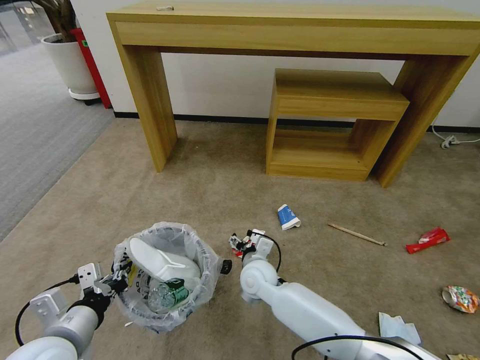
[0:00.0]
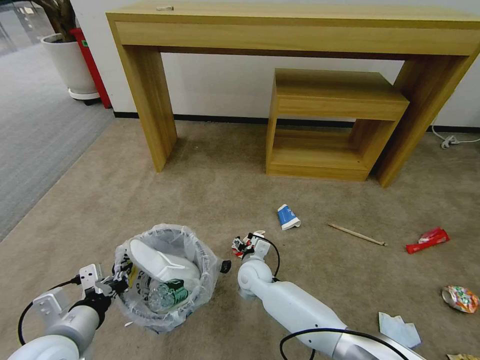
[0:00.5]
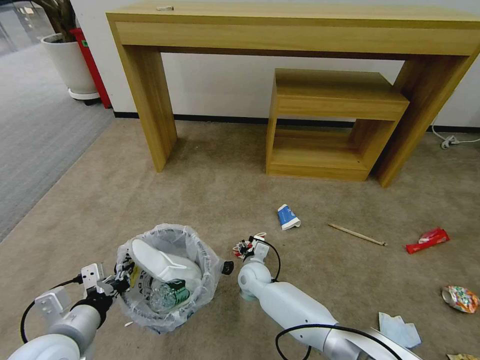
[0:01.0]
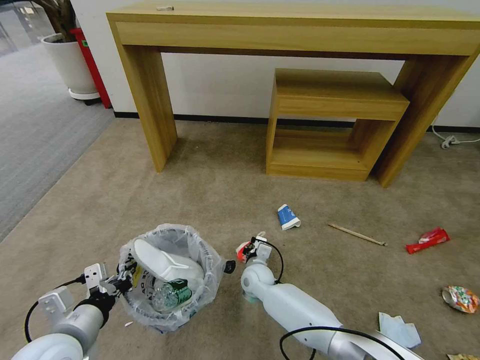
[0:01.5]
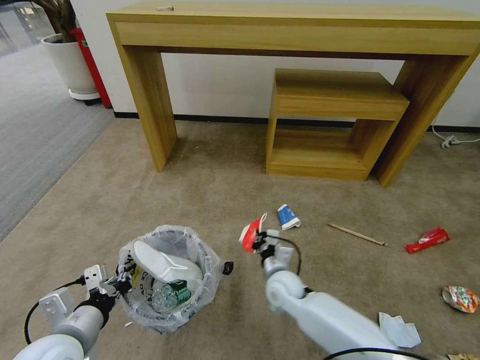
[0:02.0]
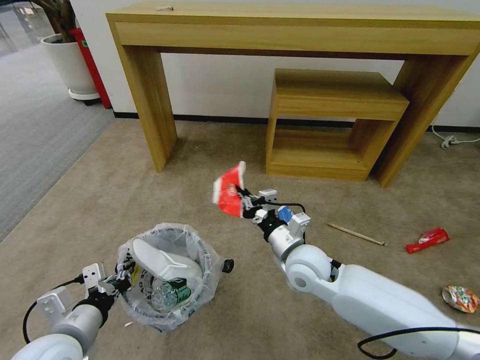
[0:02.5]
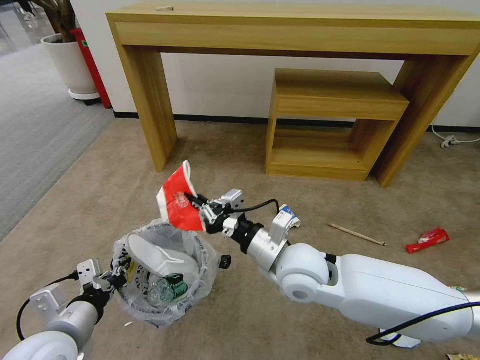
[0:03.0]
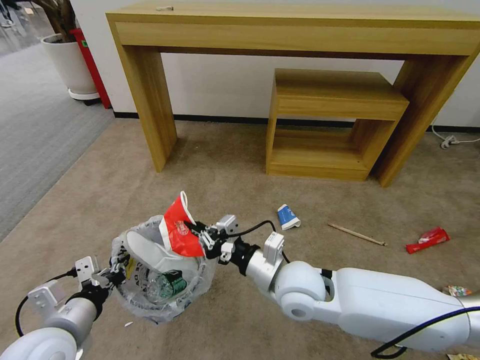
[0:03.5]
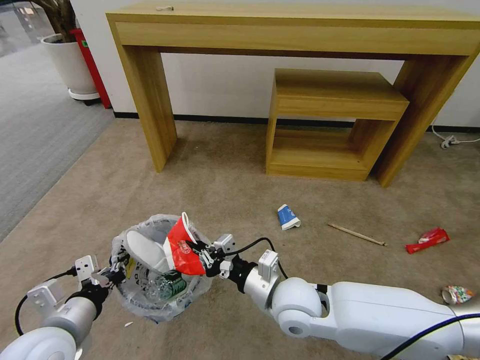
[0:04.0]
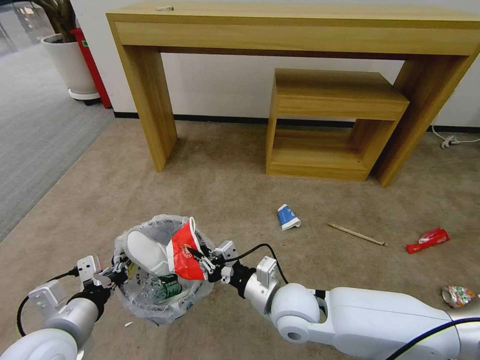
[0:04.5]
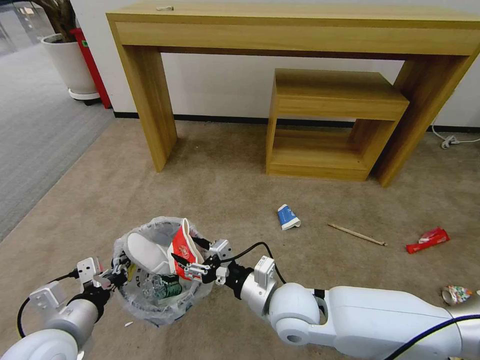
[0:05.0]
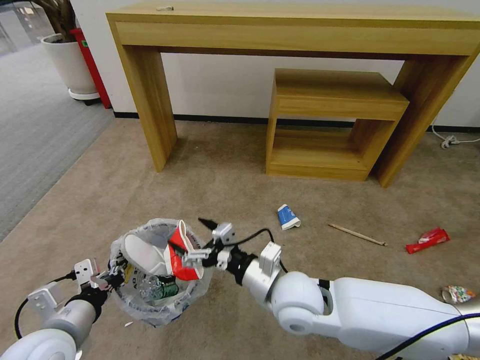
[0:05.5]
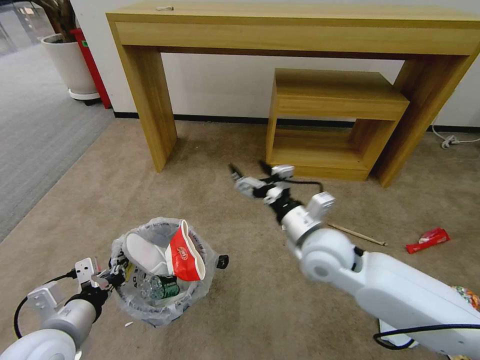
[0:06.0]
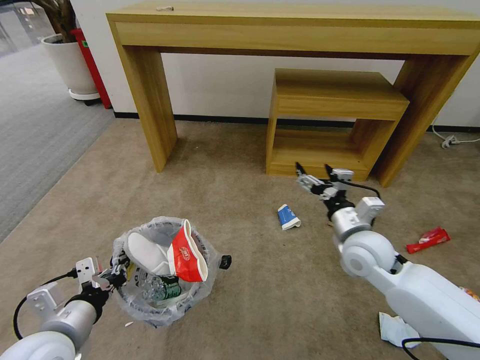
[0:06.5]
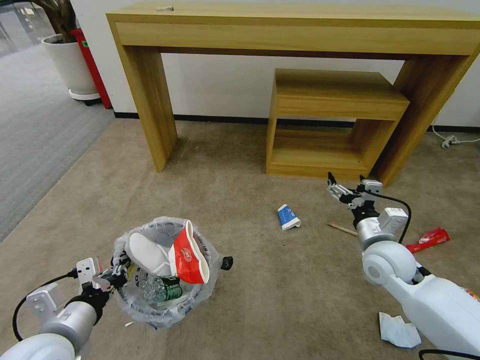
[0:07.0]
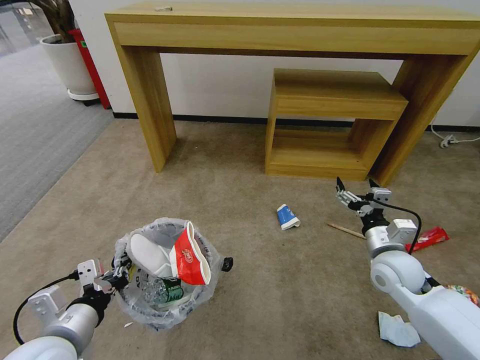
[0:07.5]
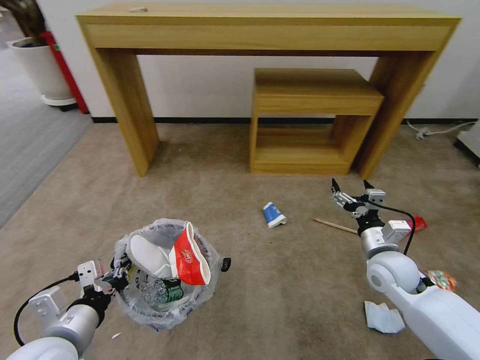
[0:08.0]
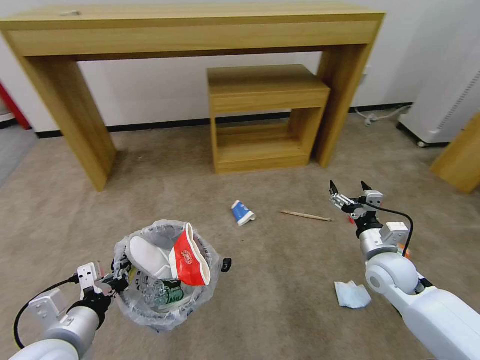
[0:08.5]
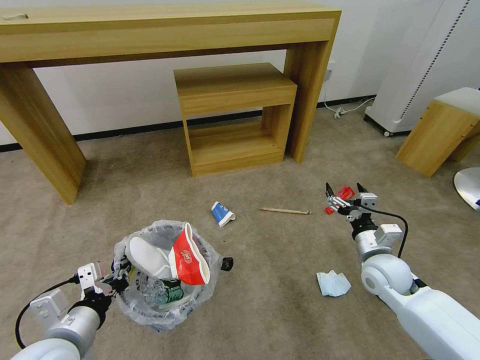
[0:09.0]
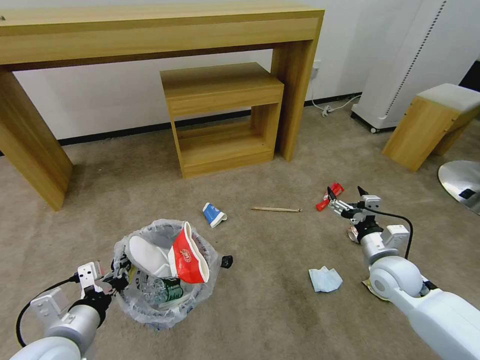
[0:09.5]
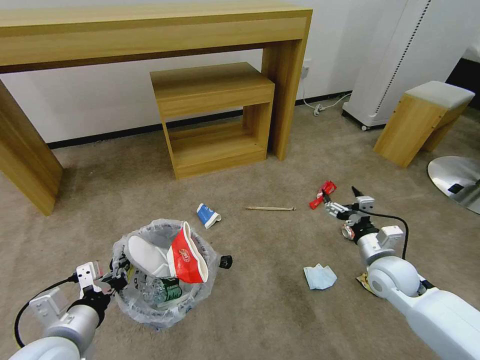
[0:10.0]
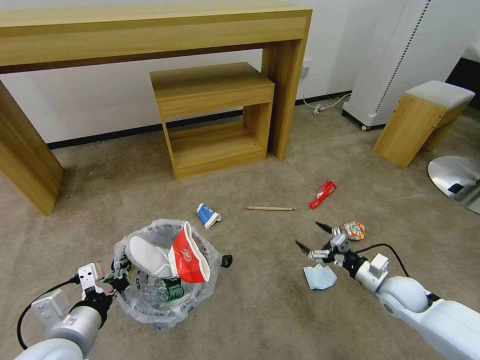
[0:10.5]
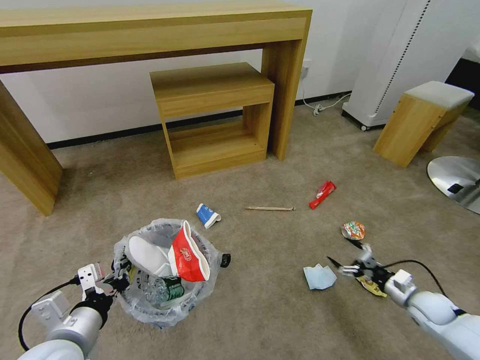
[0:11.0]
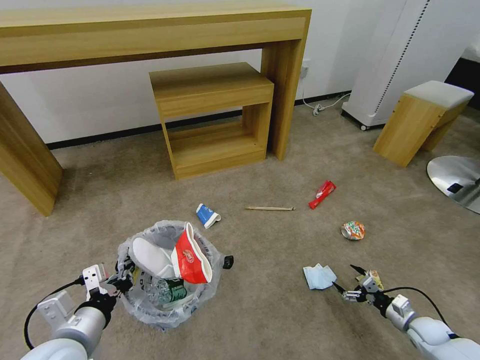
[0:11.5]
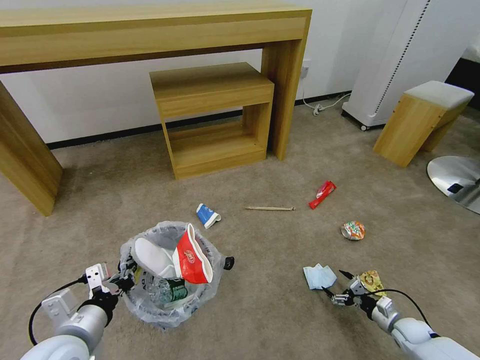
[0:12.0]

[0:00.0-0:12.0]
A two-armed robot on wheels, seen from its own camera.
Task of the whole recording: Pick up the trash bin and place the garbage on the floor into it.
0:00.0 to 0:02.0: The right gripper moves to the right, about 5 cm, and closes.
0:02.0 to 0:04.0: The right gripper heads upward and backward, covering some 15 cm.
0:04.0 to 0:06.0: The right gripper heads upward, forward and to the right, covering some 10 cm, and opens.
0:06.0 to 0:08.0: The right gripper moves to the right and downward, about 20 cm.
0:10.0 to 0:12.0: The right gripper moves downward and to the right, roughly 30 cm.

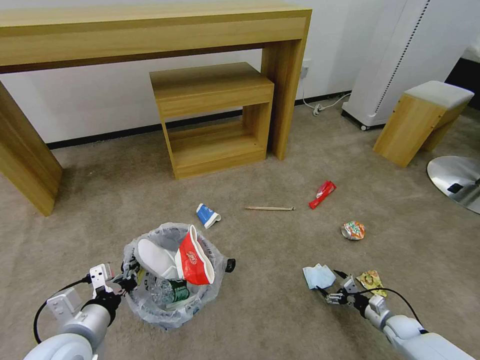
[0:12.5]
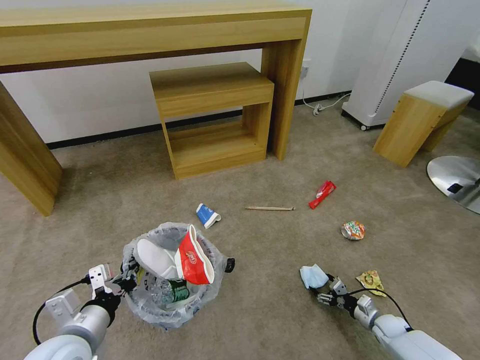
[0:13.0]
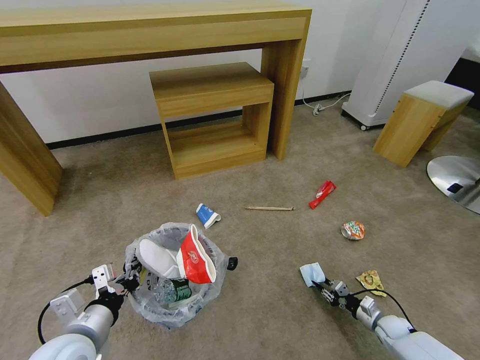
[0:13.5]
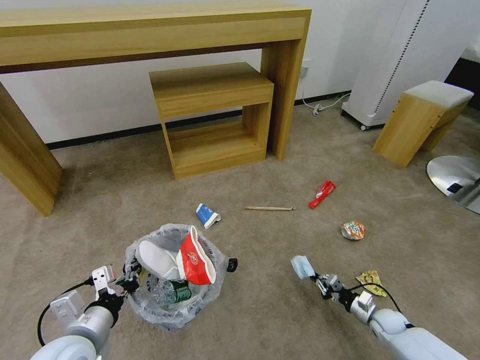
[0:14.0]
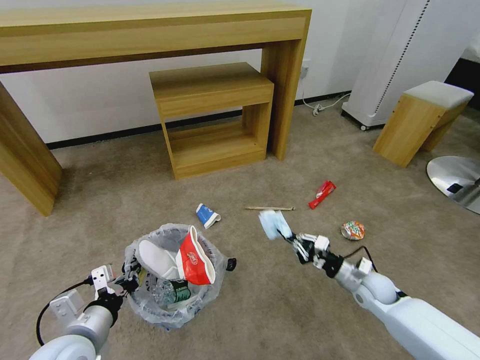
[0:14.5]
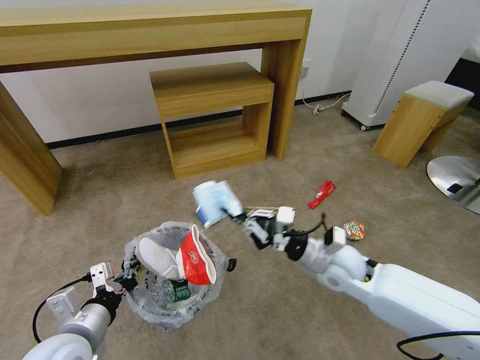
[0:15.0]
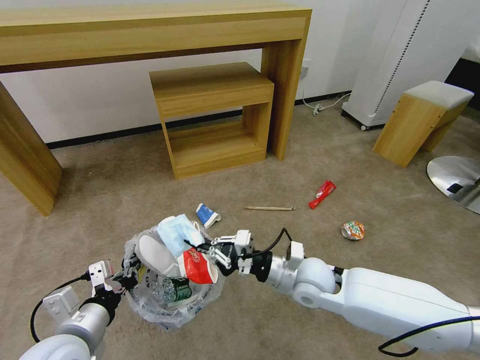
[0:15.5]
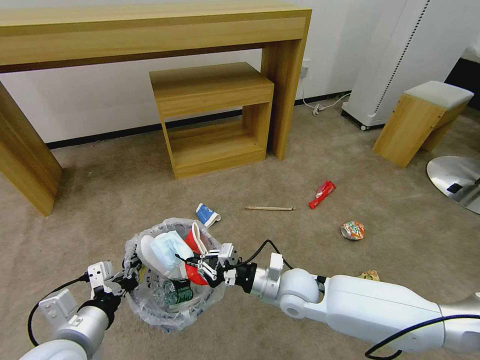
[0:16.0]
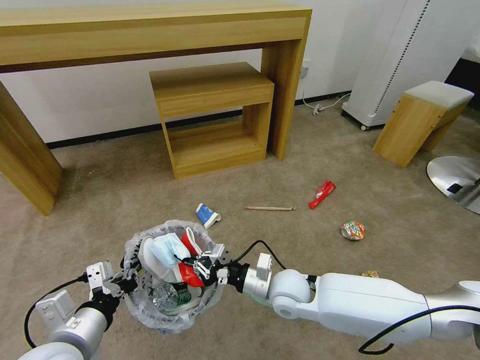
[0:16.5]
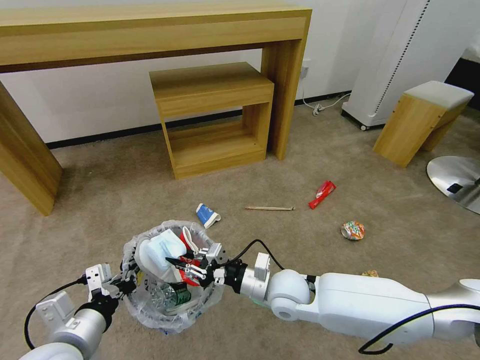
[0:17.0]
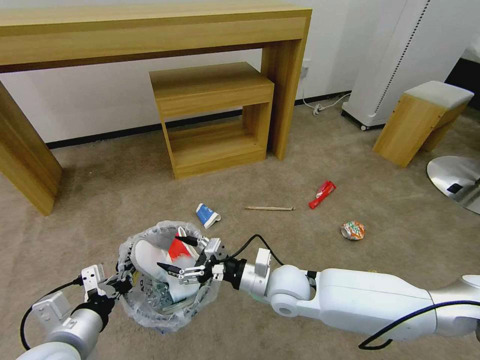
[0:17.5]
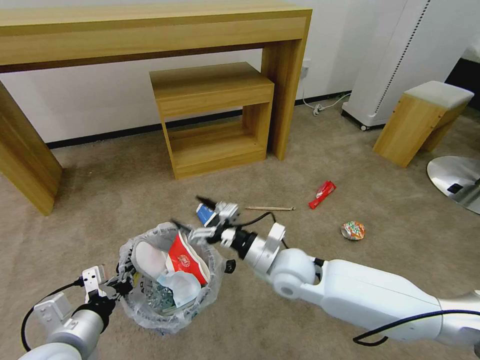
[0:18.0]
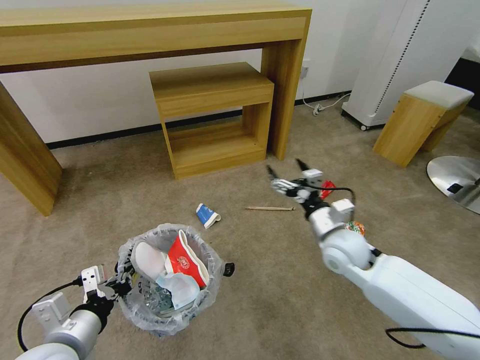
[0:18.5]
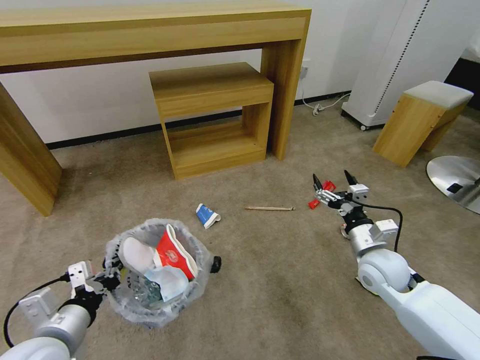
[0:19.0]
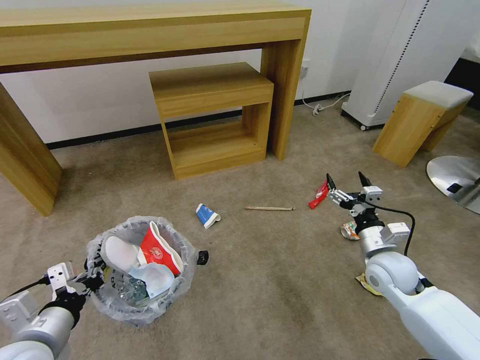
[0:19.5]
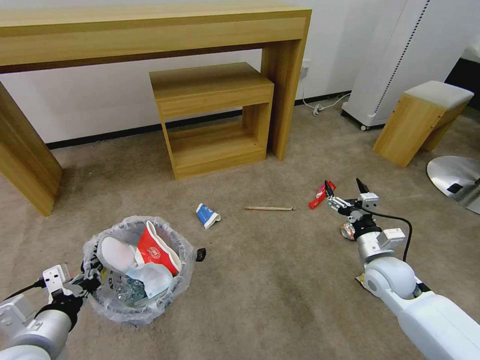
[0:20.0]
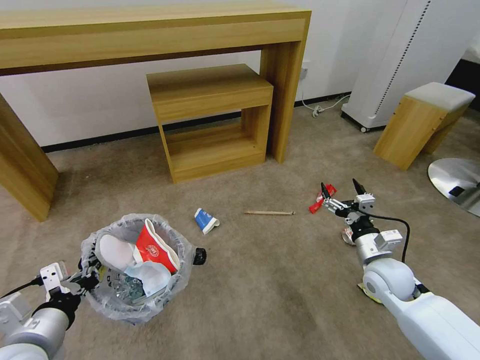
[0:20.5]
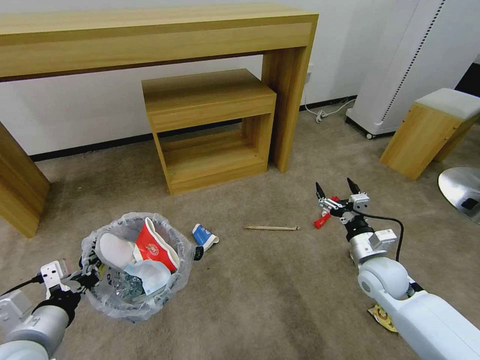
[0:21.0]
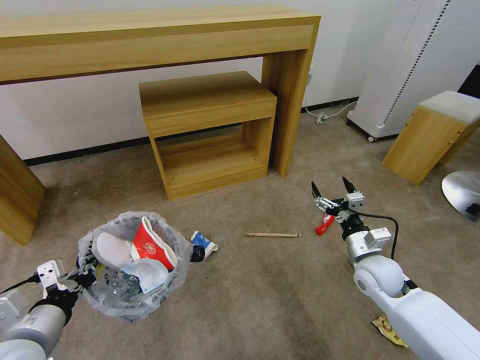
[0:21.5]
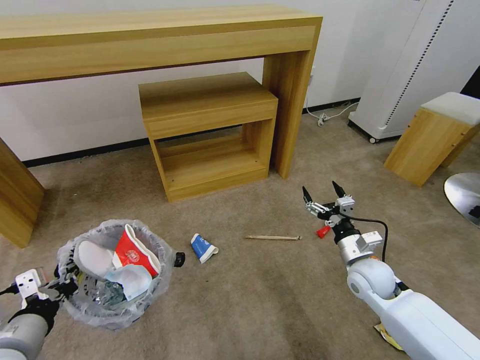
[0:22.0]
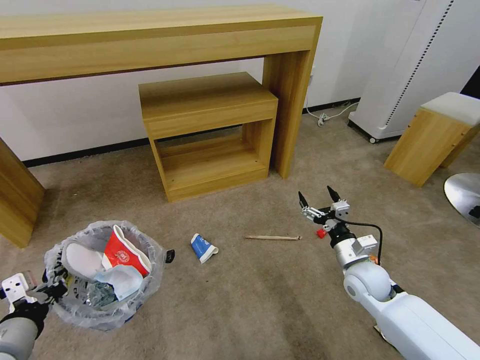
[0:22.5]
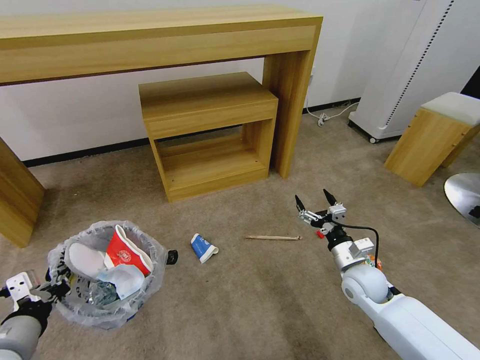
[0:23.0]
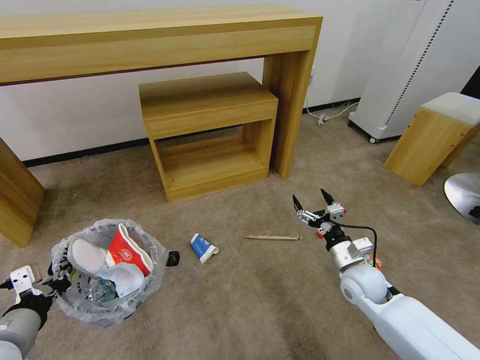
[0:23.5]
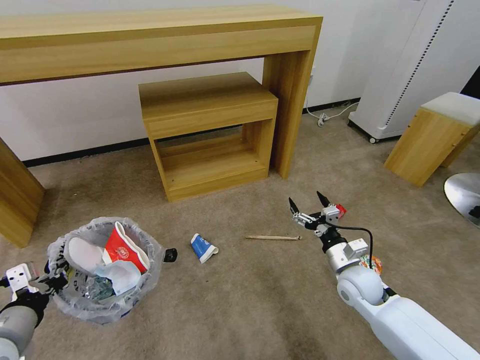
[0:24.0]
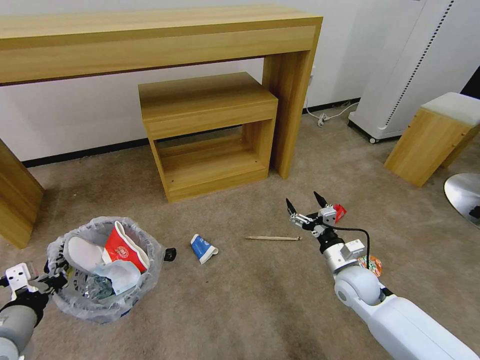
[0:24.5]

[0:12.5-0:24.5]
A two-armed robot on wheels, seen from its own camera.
Task of the whole recording: Pick up the trash bin and place the garbage on the floor into it.
0:12.5 to 0:14.5: The right gripper shifts approximately 20 cm upward, to the left and forward, and closes.
0:14.5 to 0:16.5: The left gripper shifts by about 5 cm, while the right gripper moves to the left, about 25 cm.
0:16.5 to 0:18.5: The right gripper is displaced to the right, upward and forward by about 15 cm, and opens up.
0:18.5 to 0:20.5: The right gripper goes about 15 cm to the right and downward.
0:22.5 to 0:24.5: The grippers stay close to where they were, moving slightly.

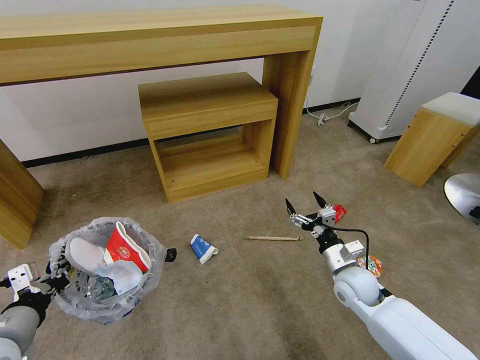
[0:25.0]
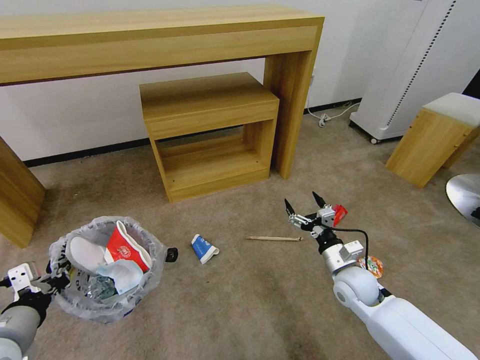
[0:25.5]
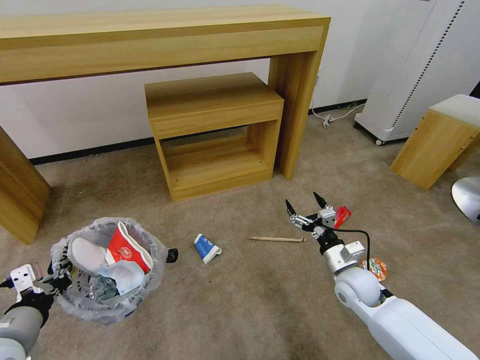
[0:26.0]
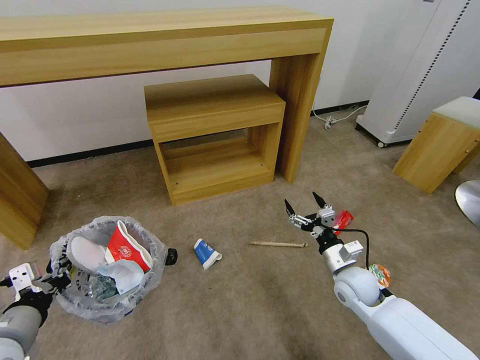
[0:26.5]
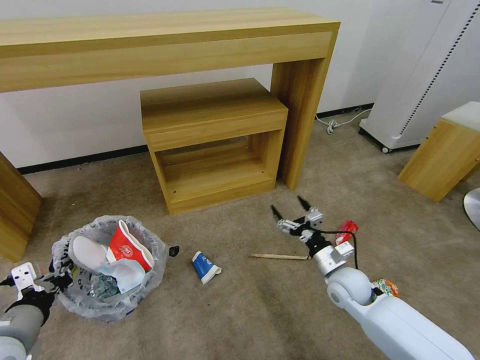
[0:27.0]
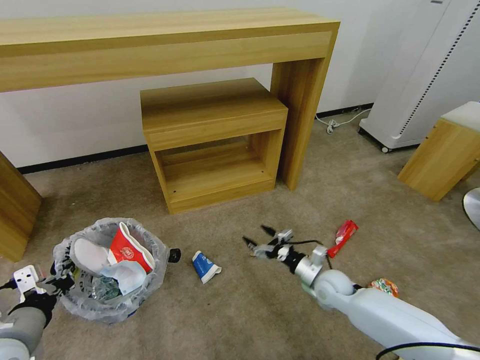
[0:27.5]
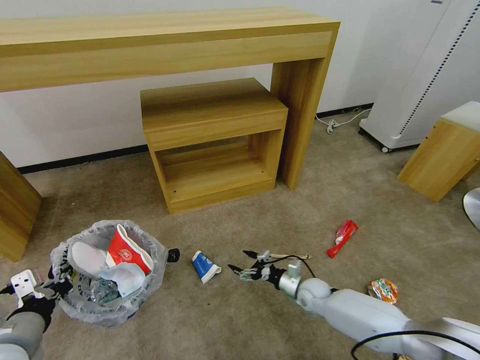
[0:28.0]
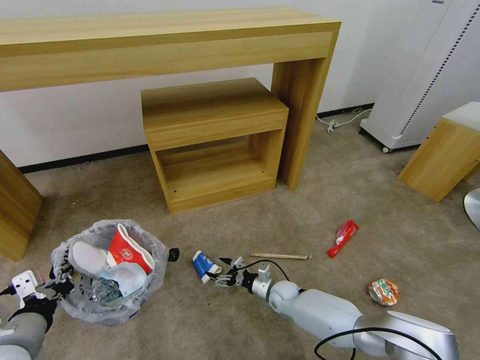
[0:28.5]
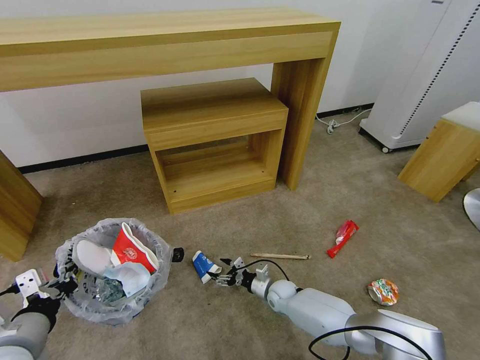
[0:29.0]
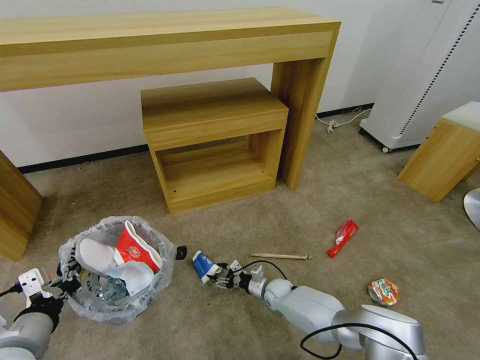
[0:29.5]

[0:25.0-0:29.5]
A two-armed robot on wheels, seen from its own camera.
Task of the whole recording: Pick up the trash bin and place the garbage on the floor into it.
0:27.0 to 0:29.5: The right gripper heads downward and to the left, covering about 25 cm, and closes up.
